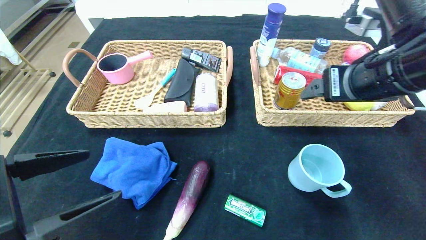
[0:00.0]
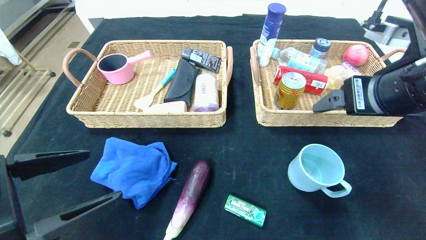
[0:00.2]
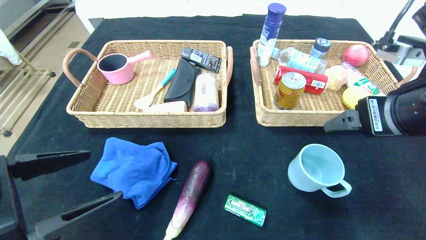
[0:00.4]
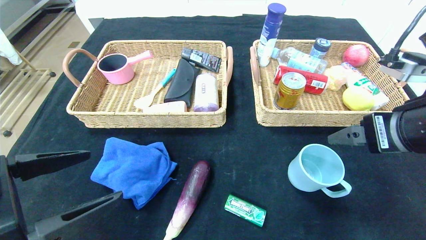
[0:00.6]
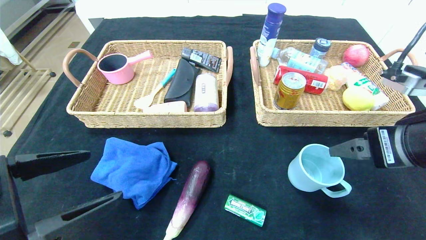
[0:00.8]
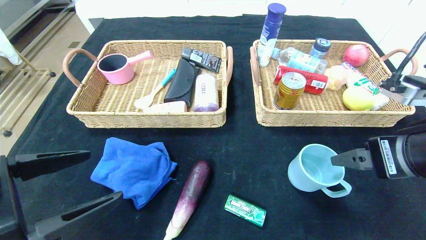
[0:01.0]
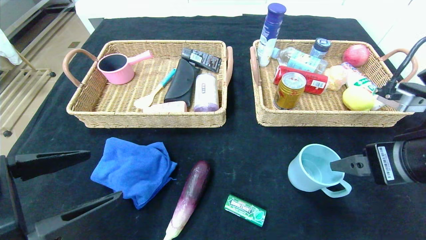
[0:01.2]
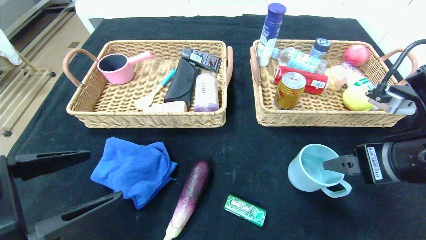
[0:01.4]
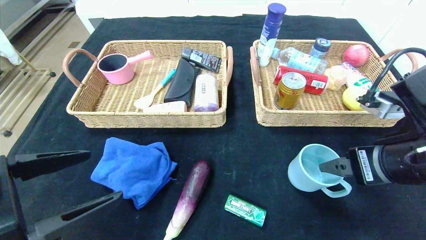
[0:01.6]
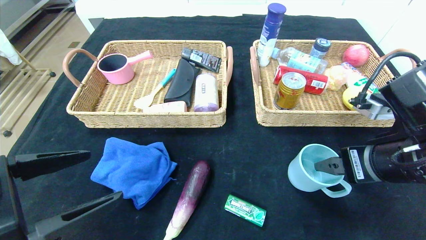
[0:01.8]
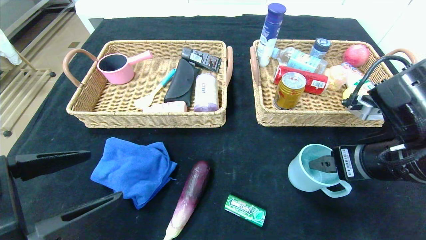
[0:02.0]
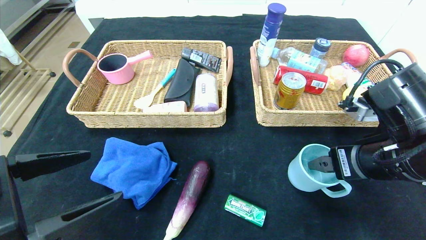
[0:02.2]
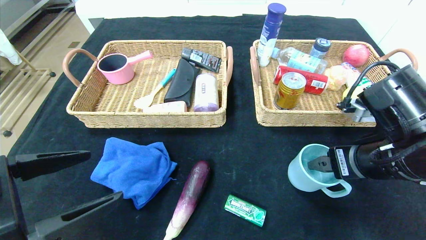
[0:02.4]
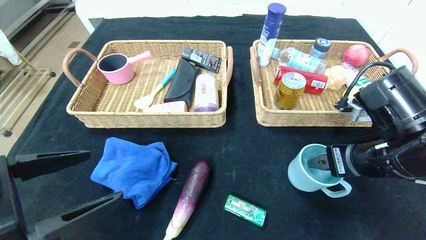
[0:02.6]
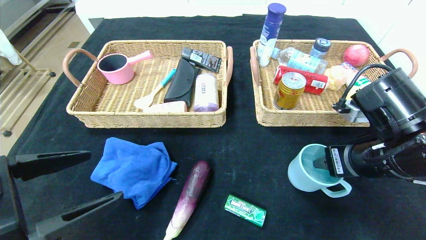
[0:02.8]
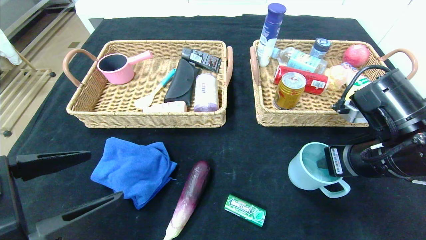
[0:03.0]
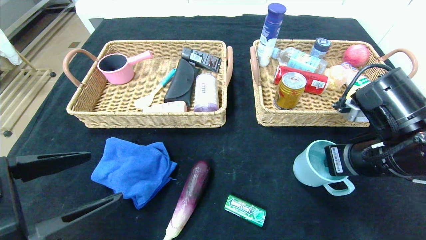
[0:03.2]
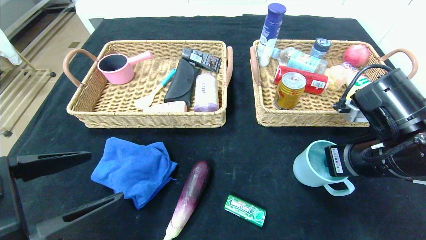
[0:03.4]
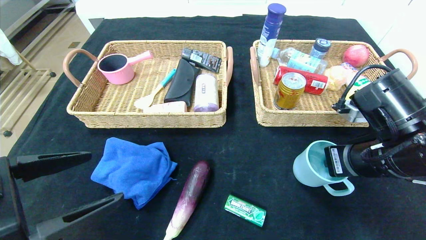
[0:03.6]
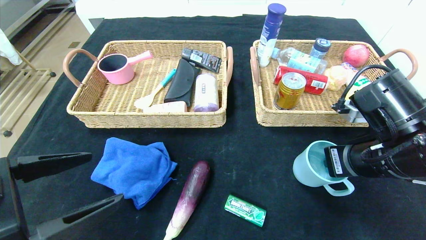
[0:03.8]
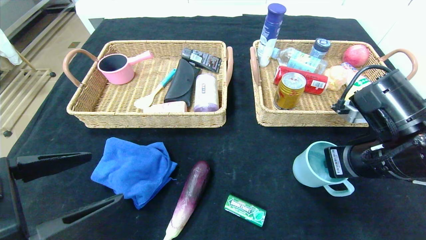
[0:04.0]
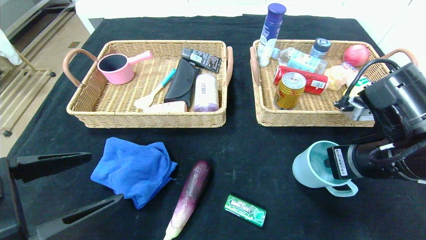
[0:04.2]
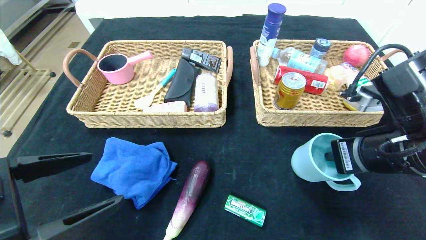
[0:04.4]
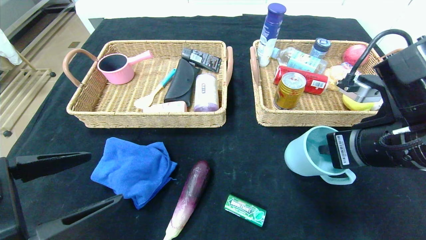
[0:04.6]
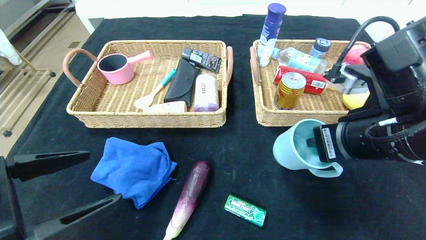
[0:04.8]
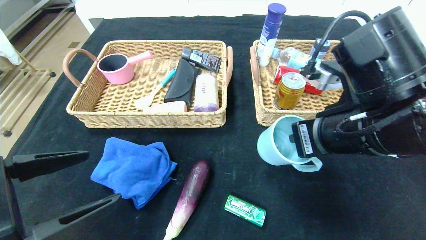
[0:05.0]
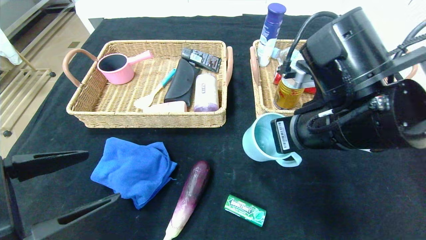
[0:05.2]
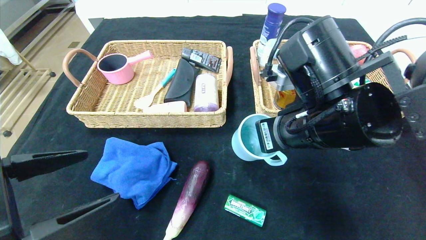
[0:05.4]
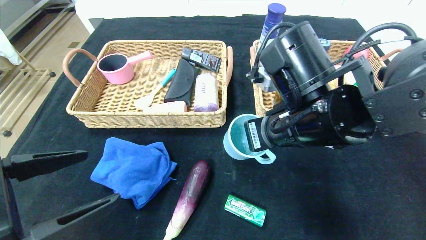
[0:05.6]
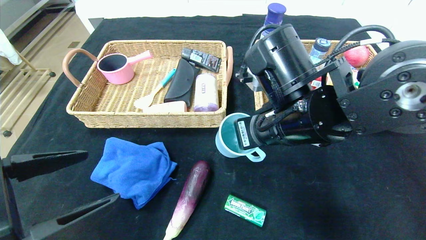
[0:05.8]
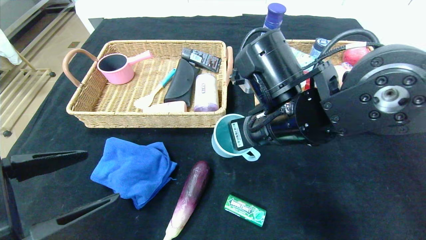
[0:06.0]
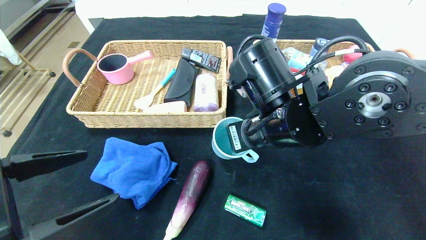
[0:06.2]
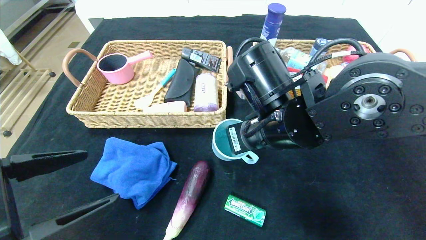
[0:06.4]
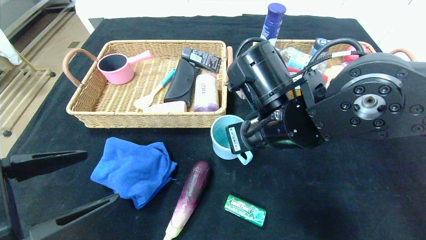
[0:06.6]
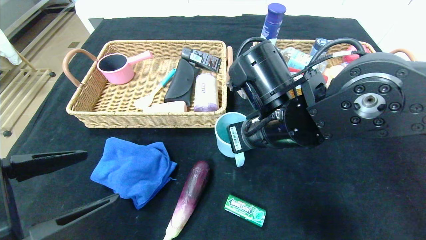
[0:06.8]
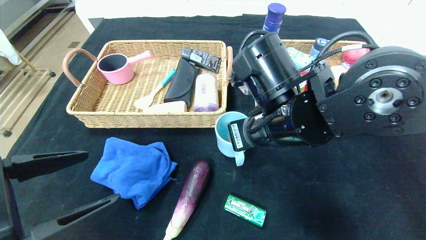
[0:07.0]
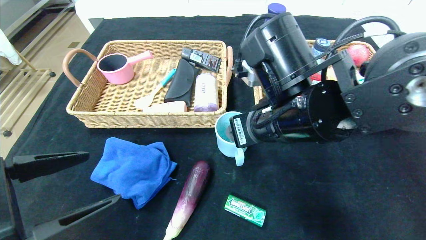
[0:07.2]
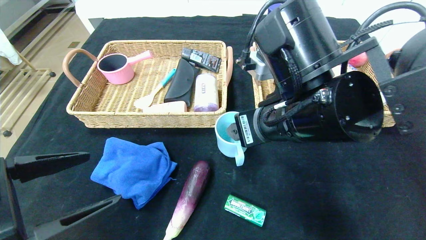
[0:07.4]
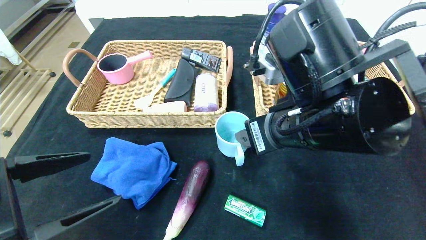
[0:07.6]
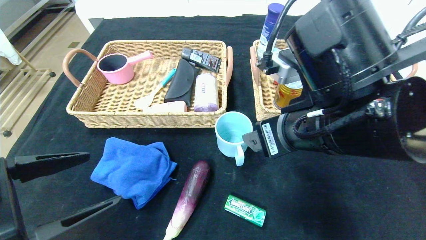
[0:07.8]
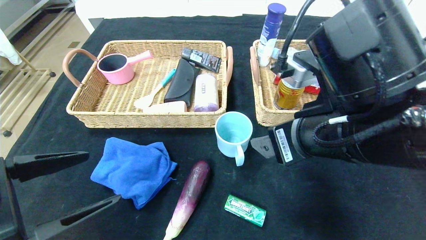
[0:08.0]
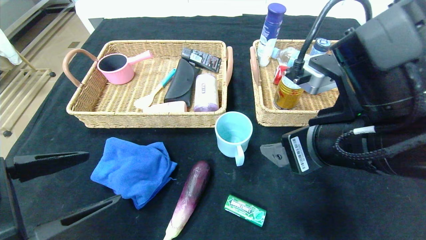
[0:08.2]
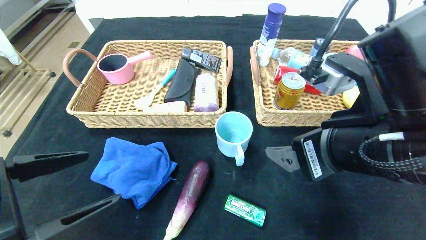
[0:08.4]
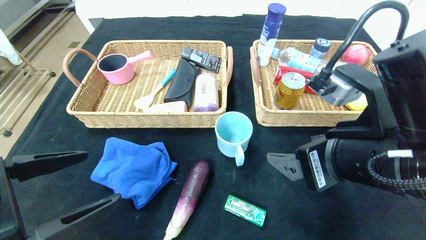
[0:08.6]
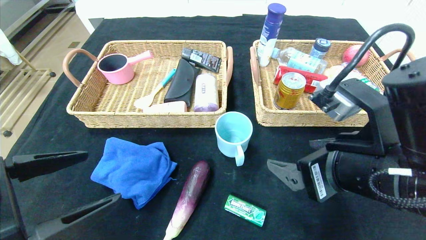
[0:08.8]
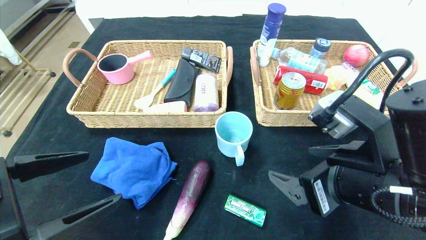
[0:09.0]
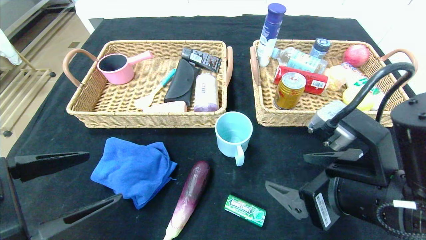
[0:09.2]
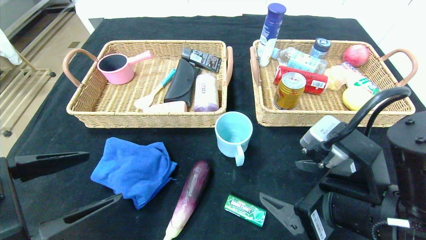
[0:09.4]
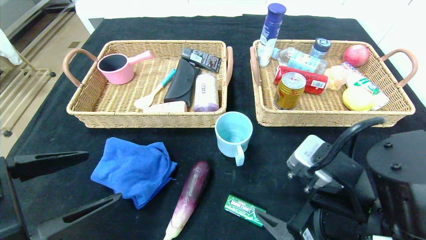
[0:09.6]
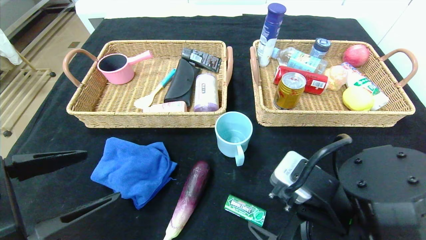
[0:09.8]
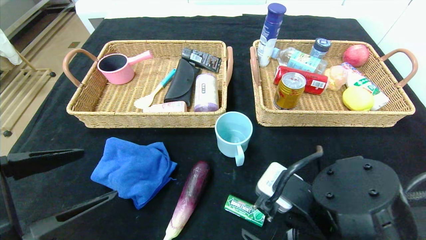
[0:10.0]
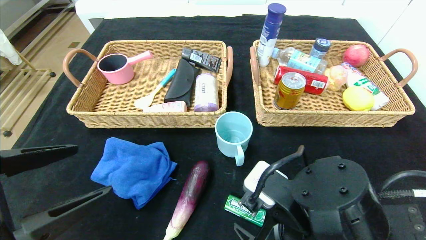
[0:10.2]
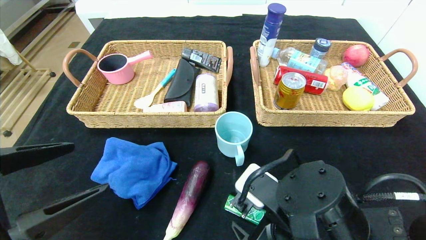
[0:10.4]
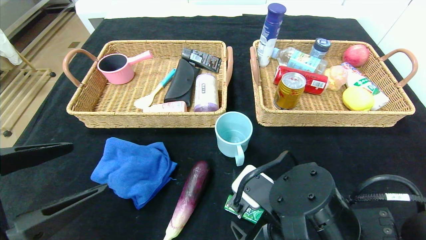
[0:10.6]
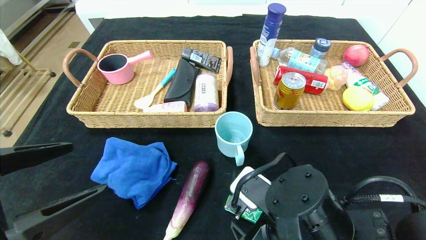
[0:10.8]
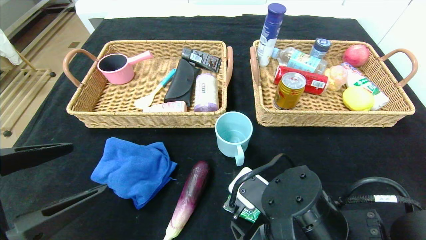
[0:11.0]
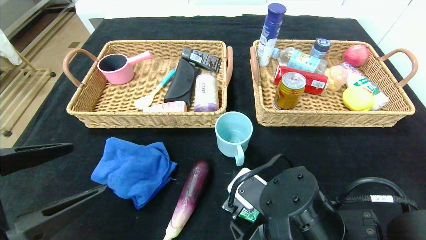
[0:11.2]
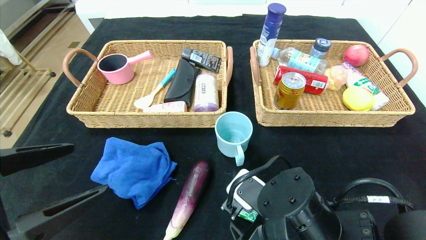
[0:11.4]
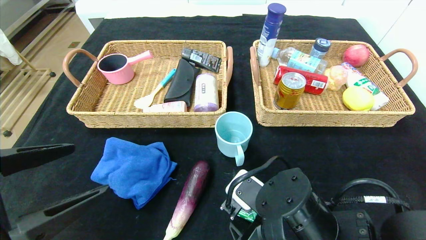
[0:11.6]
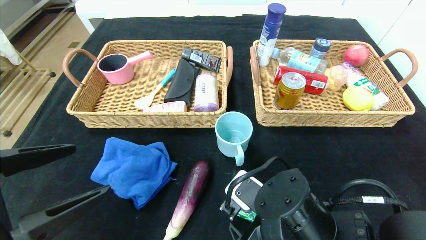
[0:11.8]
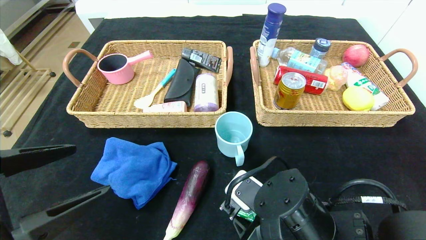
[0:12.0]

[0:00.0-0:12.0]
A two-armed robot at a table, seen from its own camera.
Step, 0:00.8 to 0:08.8: Place the blue cup in the center of the table.
0:00.0 to 0:01.6: The right gripper shifts roughly 10 cm downward.
0:01.6 to 0:03.0: The right gripper closes up.
0:03.0 to 0:04.4: The grippers make only small movements.
0:04.4 to 0:06.0: The right gripper moves to the left, some 15 cm.
0:06.0 to 0:07.6: The right gripper shifts by about 5 cm, and opens up.
0:07.6 to 0:09.0: The right gripper shifts some 10 cm to the right and backward.
0:09.0 to 0:10.4: The right gripper shifts some 10 cm downward and to the left.
0:10.4 to 0:12.0: The grippers stay close to where they were, moving slightly.

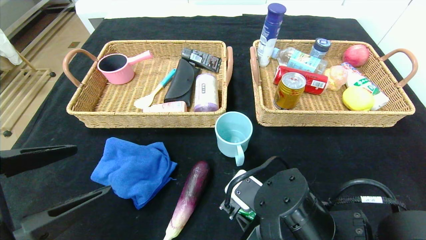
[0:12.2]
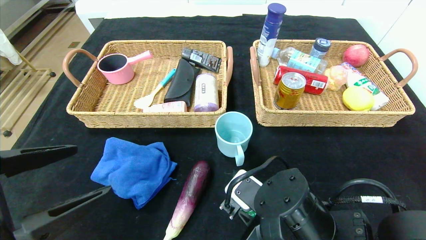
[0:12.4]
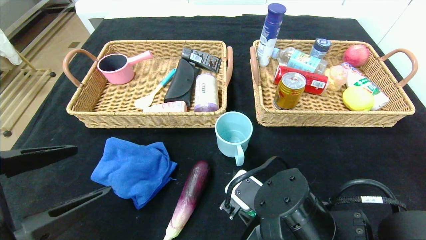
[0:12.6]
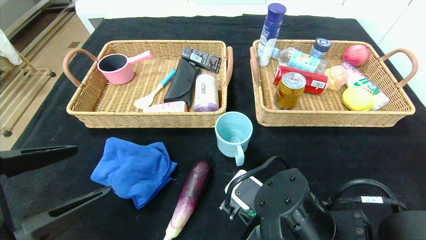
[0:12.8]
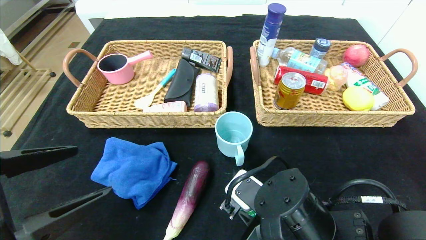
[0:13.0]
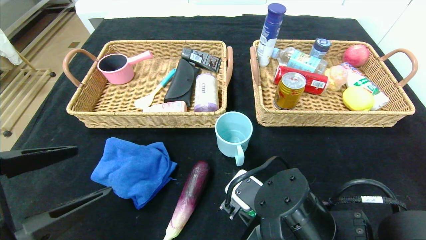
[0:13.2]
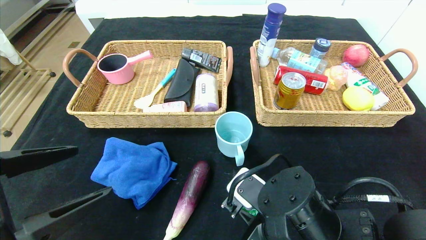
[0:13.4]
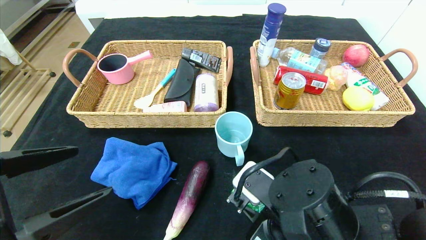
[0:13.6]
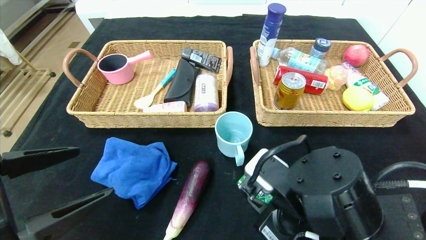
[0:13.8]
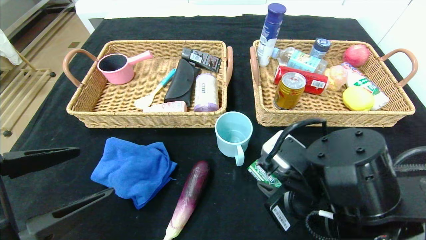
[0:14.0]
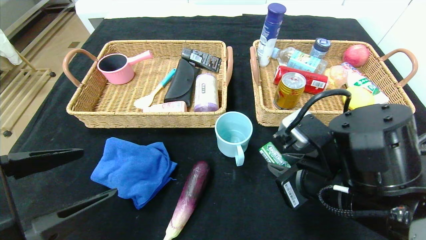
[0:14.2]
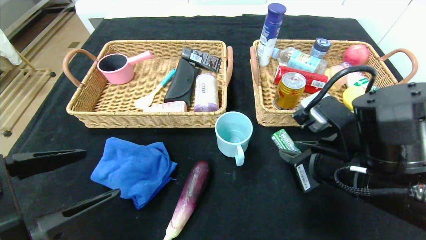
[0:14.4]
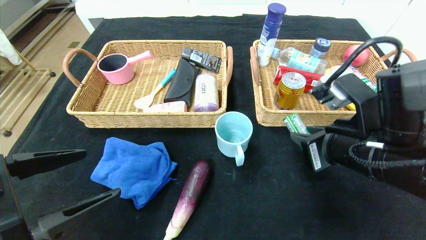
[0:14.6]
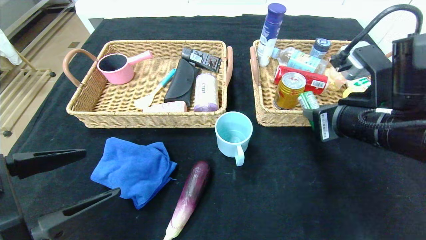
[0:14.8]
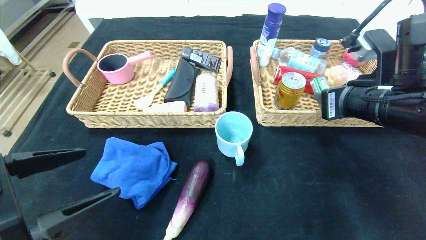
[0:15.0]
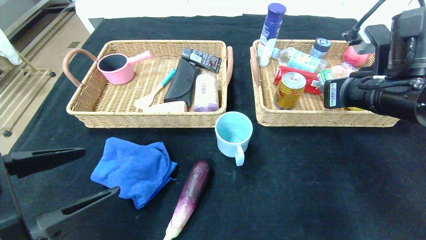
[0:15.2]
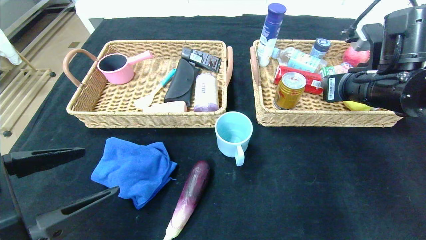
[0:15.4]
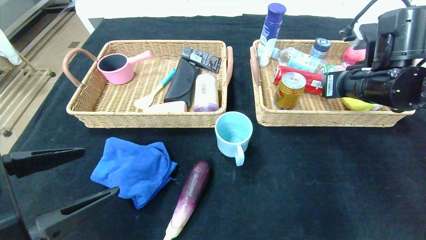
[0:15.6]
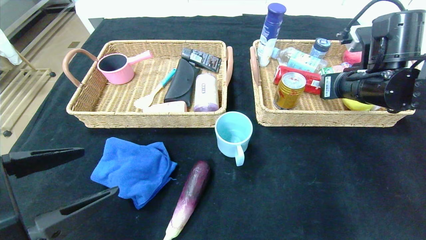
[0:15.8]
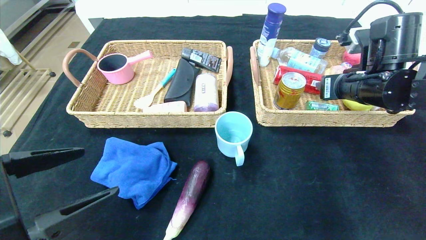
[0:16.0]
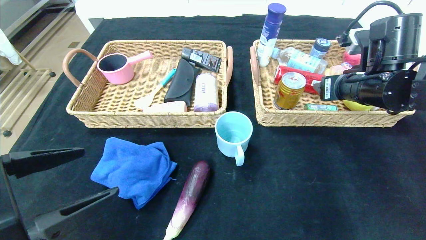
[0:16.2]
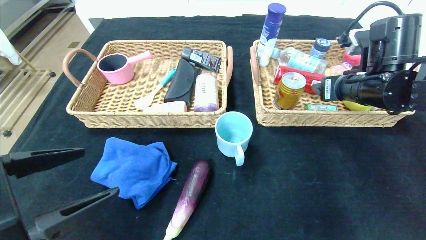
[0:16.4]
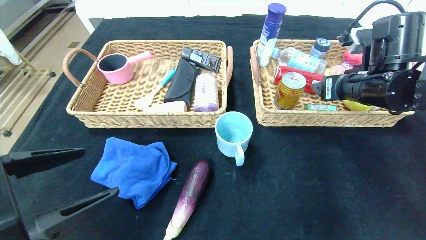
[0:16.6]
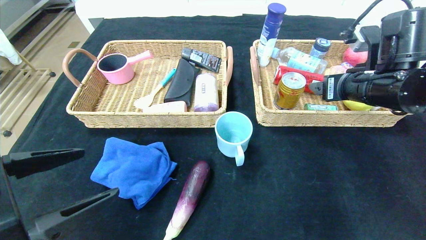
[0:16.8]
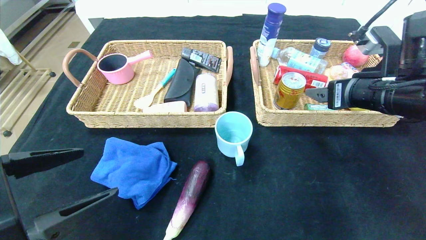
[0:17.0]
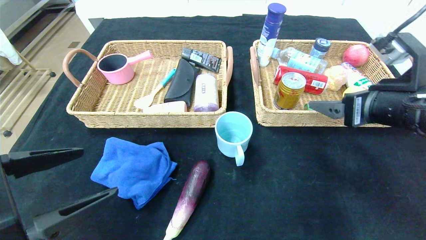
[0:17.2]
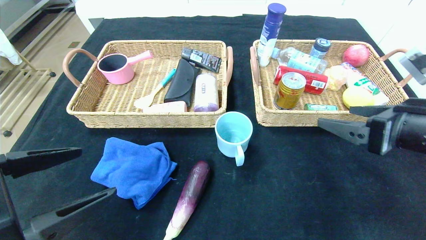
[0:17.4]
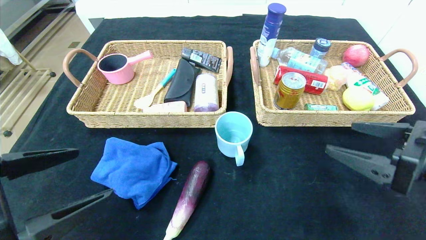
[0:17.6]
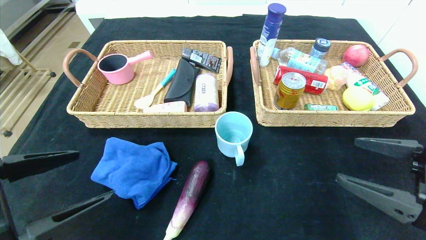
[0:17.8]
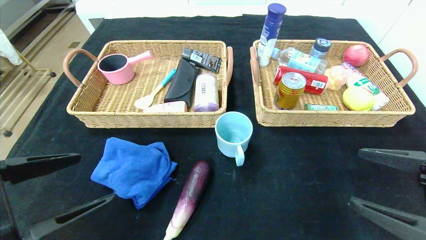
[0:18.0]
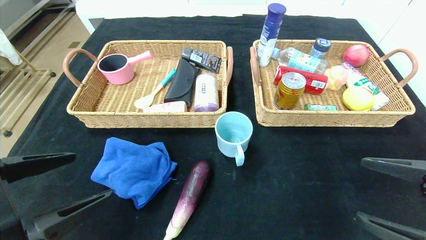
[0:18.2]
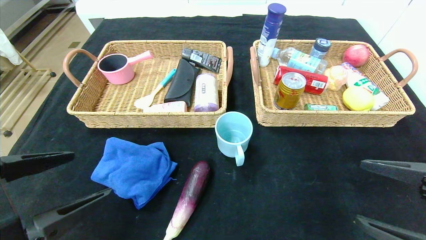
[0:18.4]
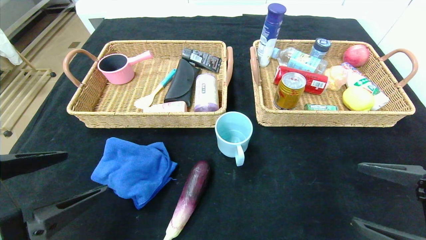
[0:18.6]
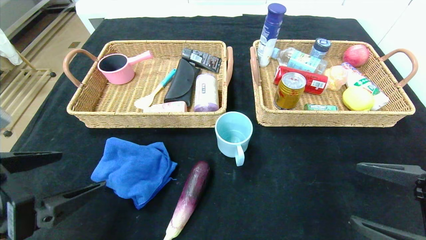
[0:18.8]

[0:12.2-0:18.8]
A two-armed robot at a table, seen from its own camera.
Step, 0:12.2 to 0:17.6: Pick up the green chewing gum and put it in the right basket.
0:12.2 to 0:13.8: The grippers make only small movements.
0:13.8 to 0:15.4: The right gripper heads forward, to the right and upward, covering roughly 20 cm.
0:15.4 to 0:17.2: The right gripper is displaced backward by approximately 5 cm, and opens up.
0:17.2 to 0:18.8: The right gripper moves backward and downward, some 15 cm.
